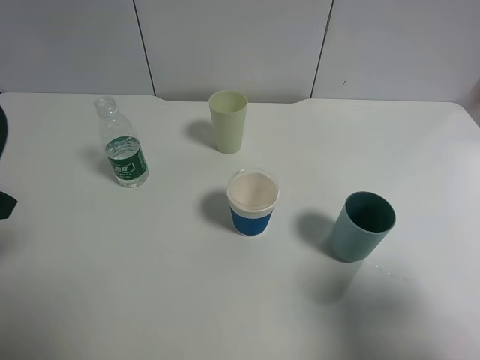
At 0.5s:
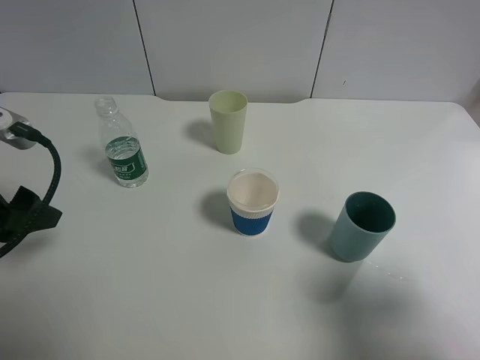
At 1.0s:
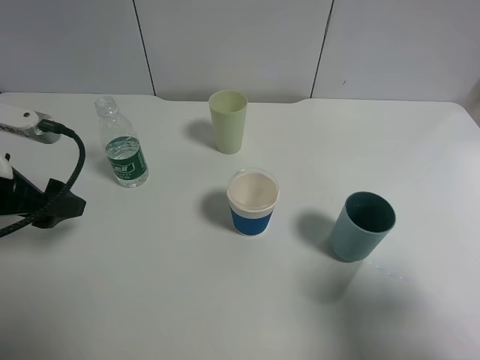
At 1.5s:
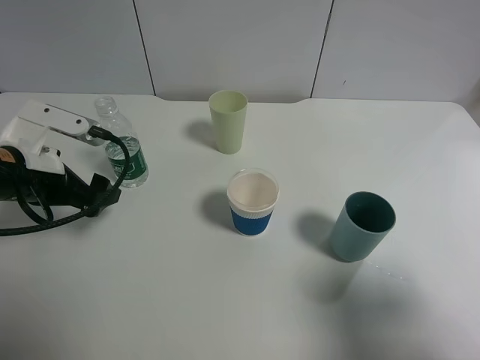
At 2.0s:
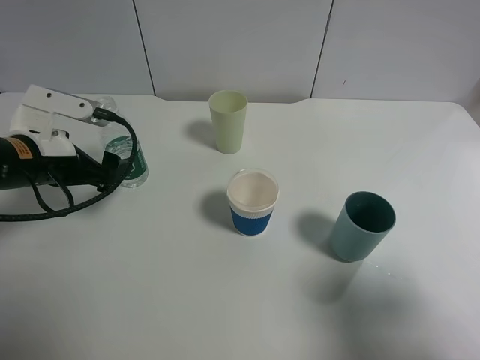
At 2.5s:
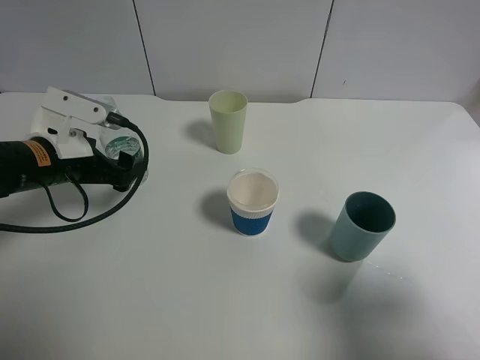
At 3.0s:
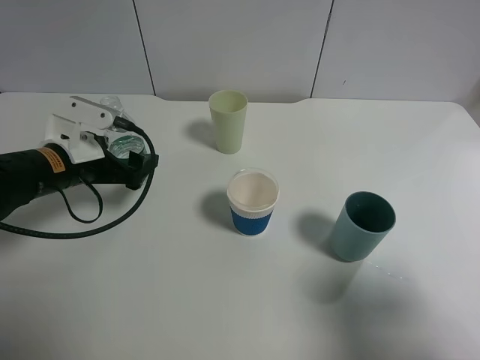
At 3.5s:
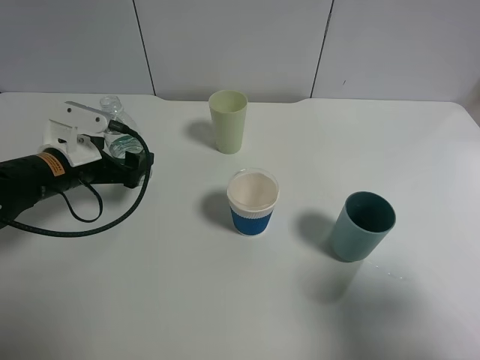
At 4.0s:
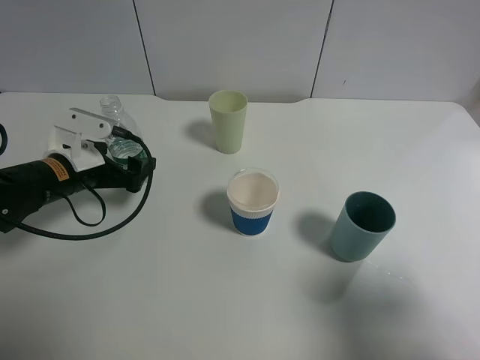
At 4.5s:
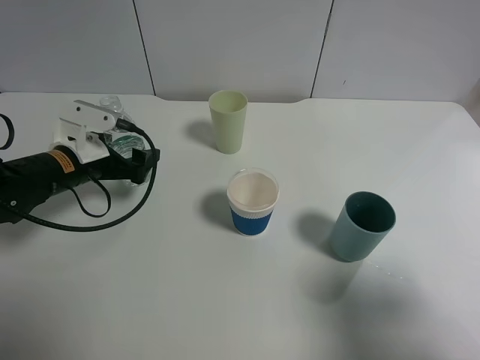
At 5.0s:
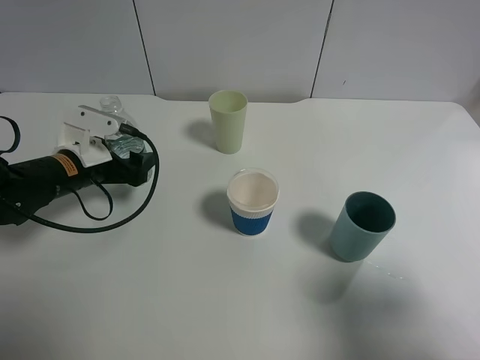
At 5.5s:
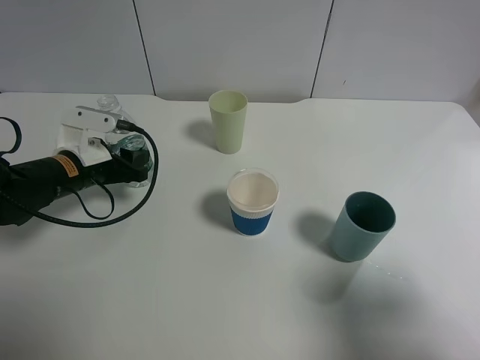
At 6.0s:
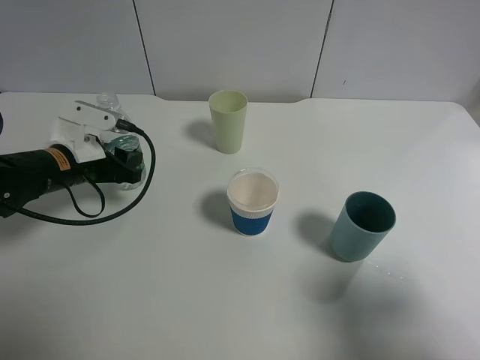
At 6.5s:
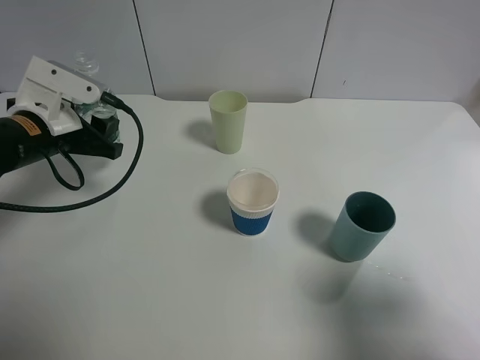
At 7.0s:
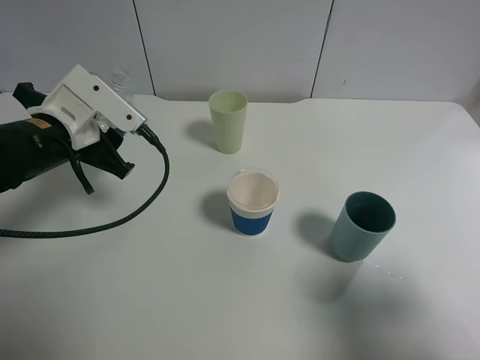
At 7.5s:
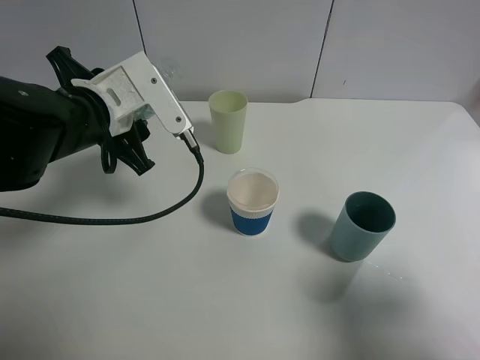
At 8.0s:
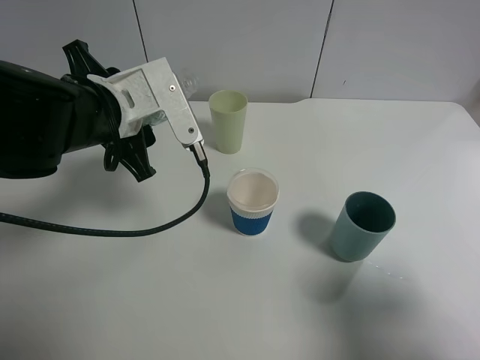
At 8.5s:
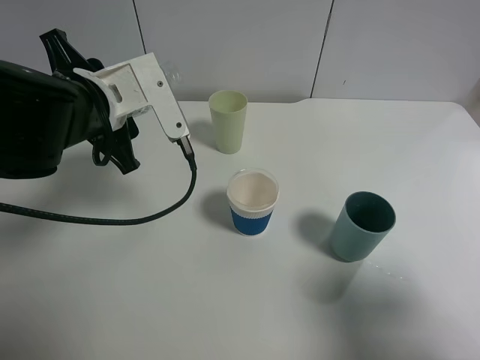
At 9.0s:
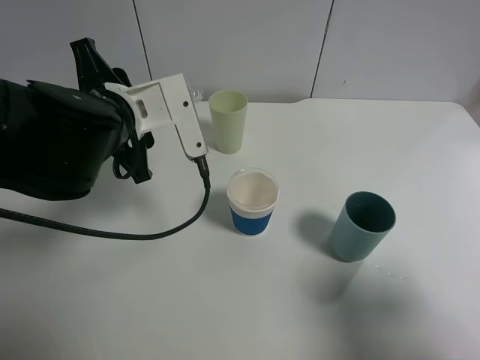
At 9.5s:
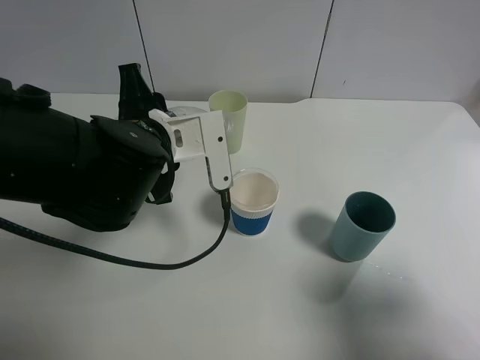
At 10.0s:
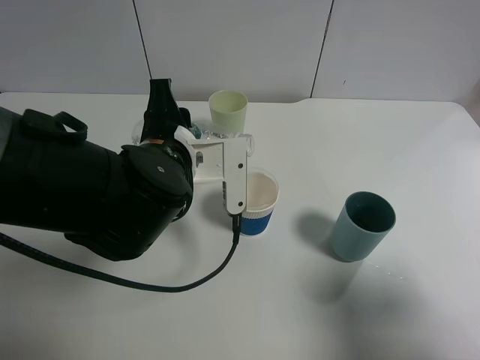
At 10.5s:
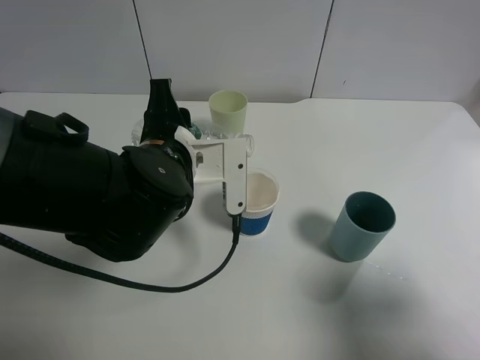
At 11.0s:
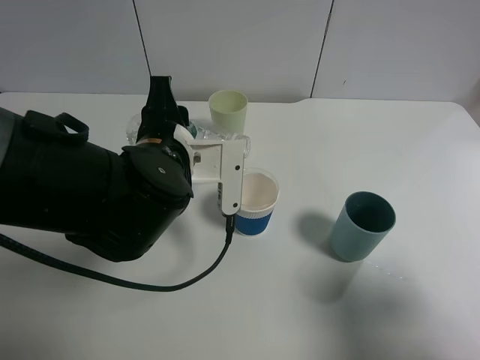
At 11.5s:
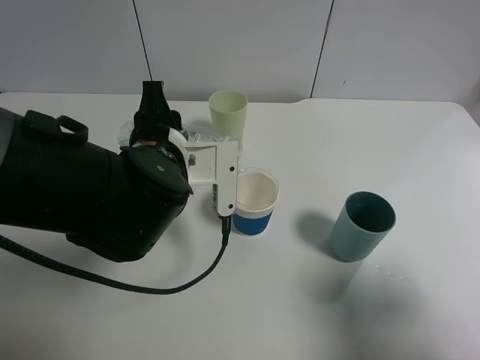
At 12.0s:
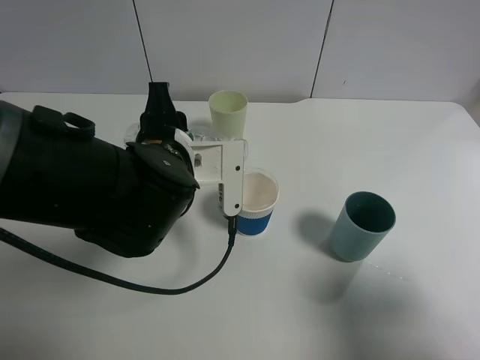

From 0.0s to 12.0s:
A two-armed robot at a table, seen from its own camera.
Task of the whole recording: use a gripper to hold the bottle of the drink and pour it into a random cup.
Step, from 0.0s to 5.0s: Grasp the mineral water bottle with the left gripper.
From 0.0s to 2.0s: The left gripper goes about 15 cm downward and forward.
From 2.0s to 4.0s: The left gripper goes some 5 cm downward.
From 4.0s to 6.0s: The left gripper closes.
From 6.0s to 8.0s: The left gripper goes about 15 cm upward and to the right.
From 8.0s to 10.0s: The left gripper travels to the right by about 5 cm.
From 10.0s to 12.0s: The grippers stay close to where they were, moving slightly.

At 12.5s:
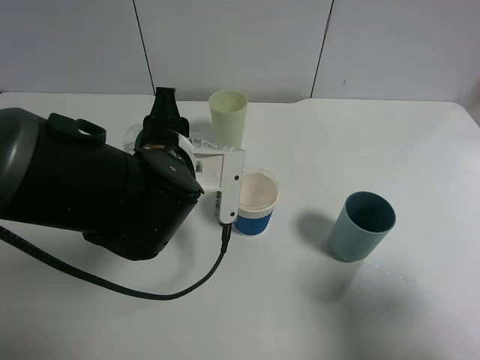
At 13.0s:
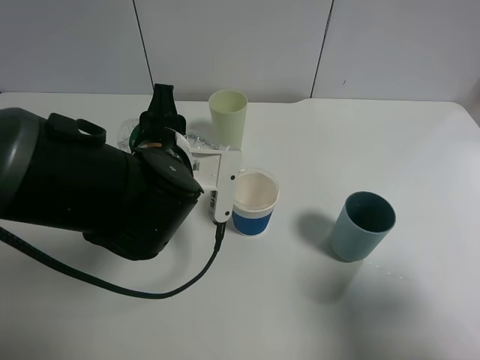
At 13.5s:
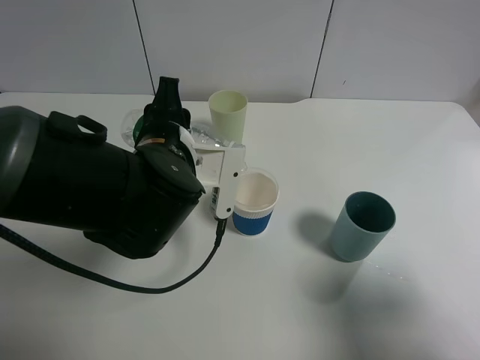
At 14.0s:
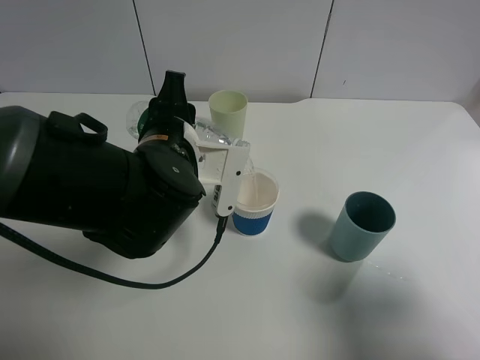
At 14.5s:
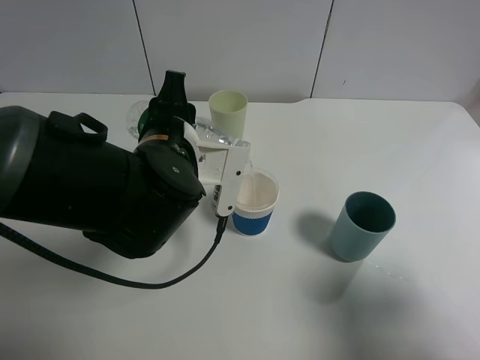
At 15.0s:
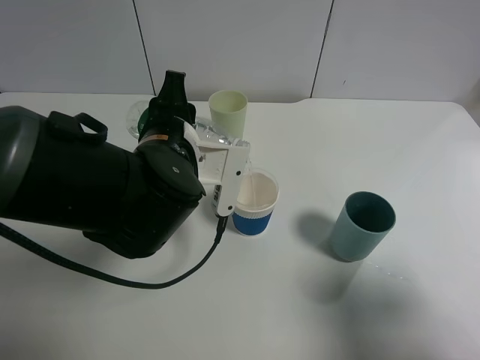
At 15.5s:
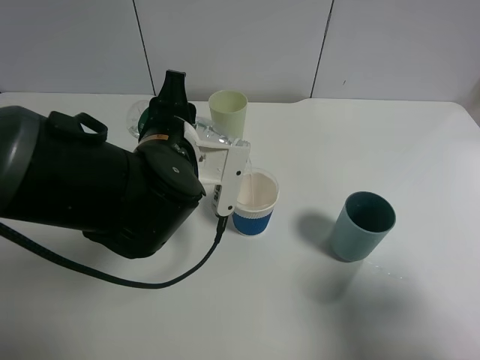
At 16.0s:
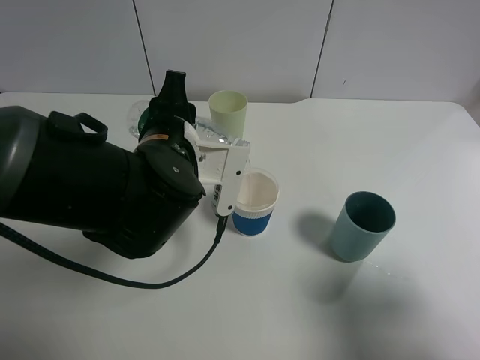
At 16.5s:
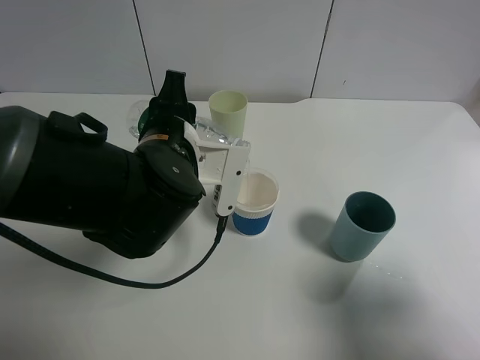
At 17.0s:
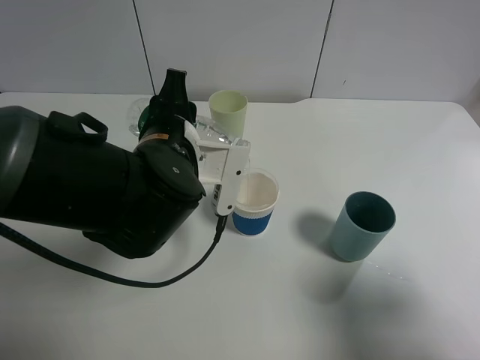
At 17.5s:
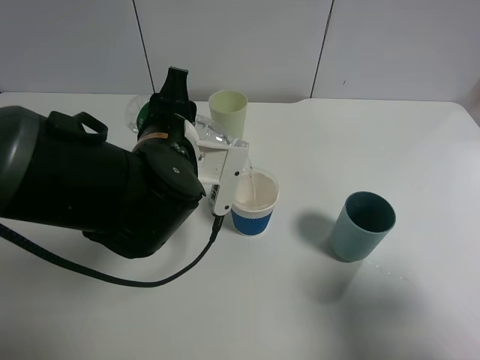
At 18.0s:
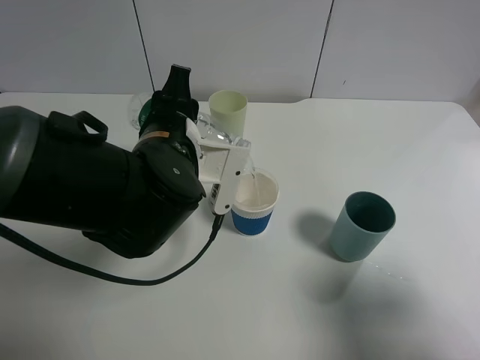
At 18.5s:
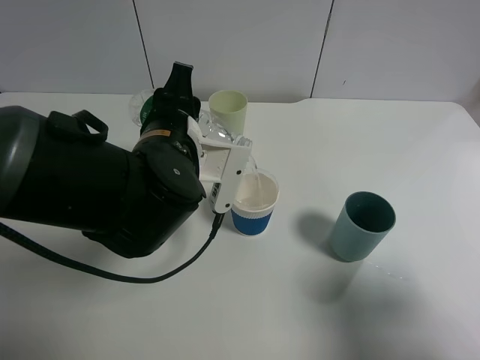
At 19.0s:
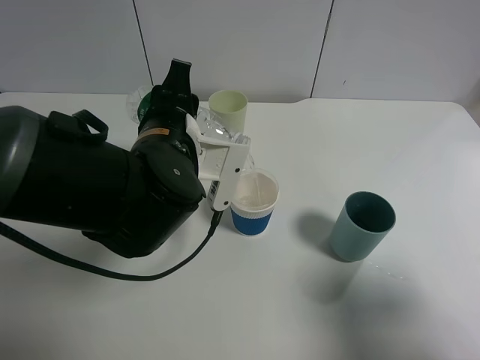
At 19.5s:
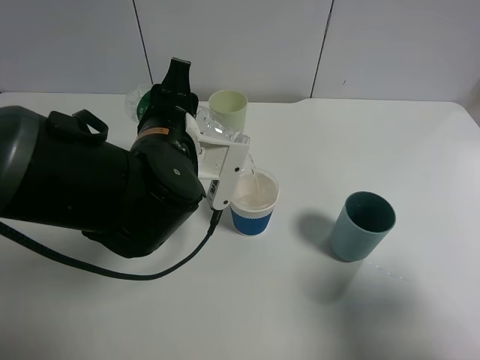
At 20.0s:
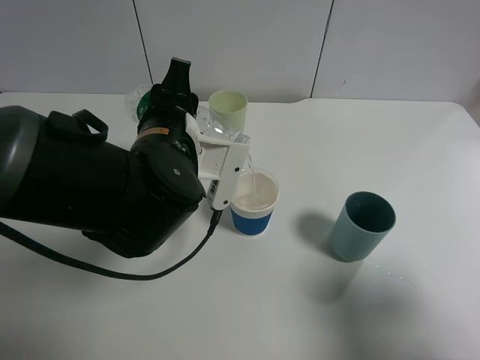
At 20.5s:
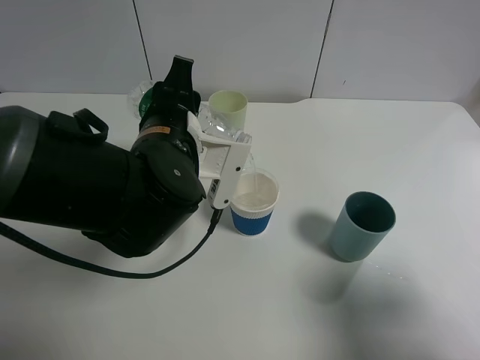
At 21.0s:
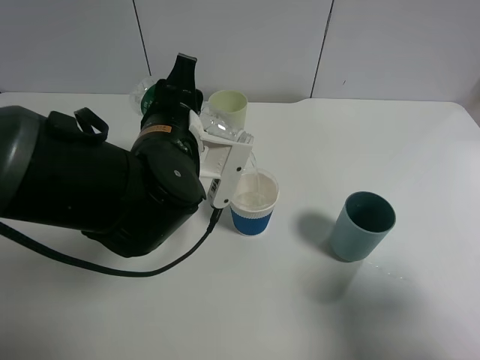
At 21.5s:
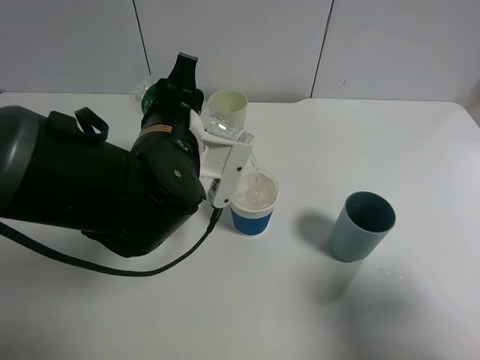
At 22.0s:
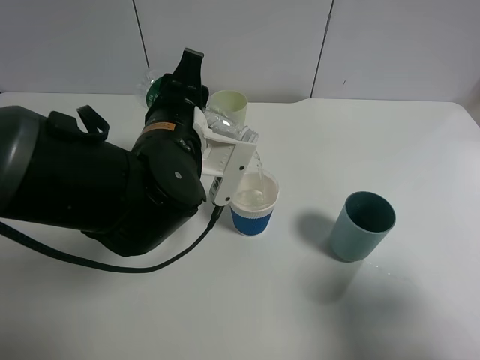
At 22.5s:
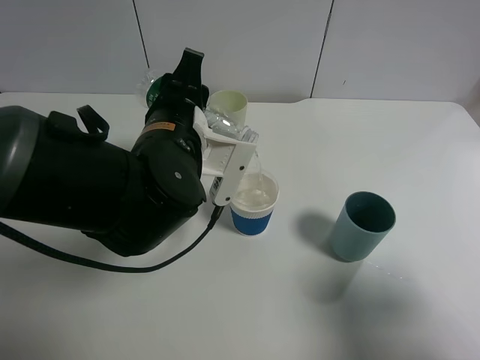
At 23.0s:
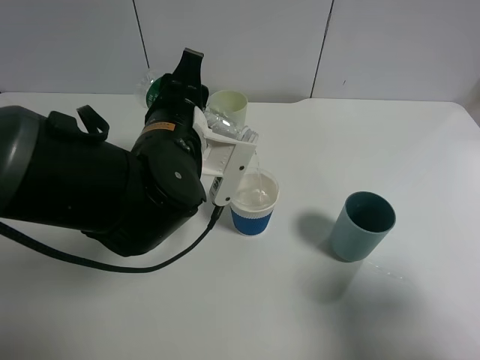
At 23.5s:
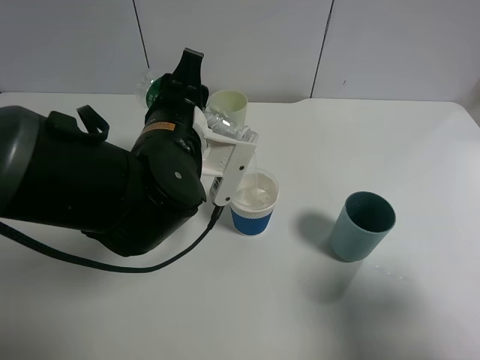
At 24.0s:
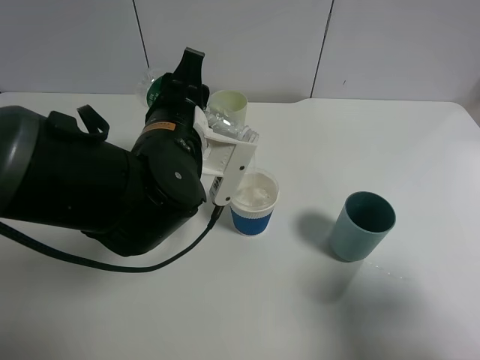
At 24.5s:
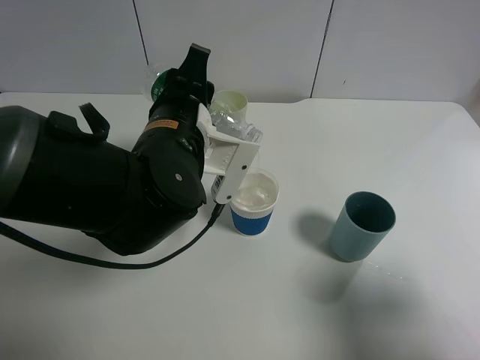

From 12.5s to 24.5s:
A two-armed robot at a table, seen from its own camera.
Task of the whole recording: use a gripper to hold the bottle of the drink and pour it into a random cup.
From 12.5s to 14.5s: The grippers move only a little.
From 14.5s to 16.5s: Both grippers stay put.
From 16.5s to 18.5s: There are only small adjustments of the grippers.
From 18.5s to 20.5s: Neither gripper changes place.
From 20.5s to 22.5s: The grippers make only small movements.
From 22.5s to 24.5s: The two grippers keep their place.

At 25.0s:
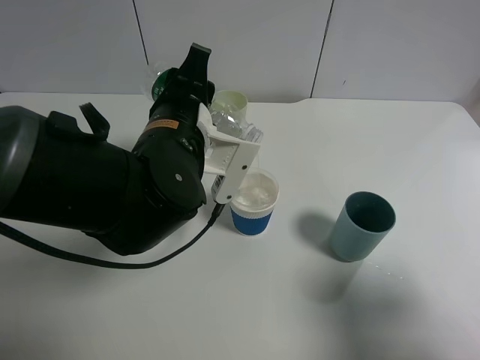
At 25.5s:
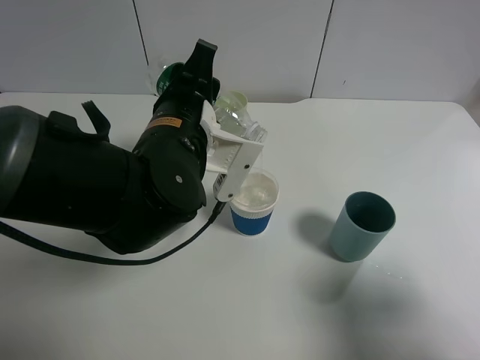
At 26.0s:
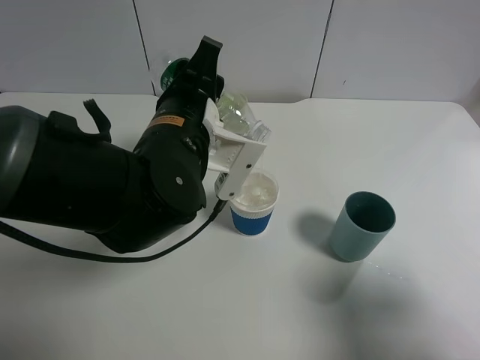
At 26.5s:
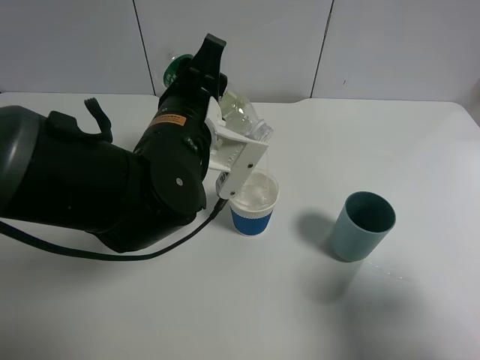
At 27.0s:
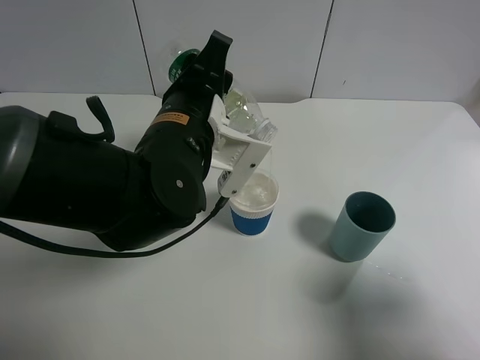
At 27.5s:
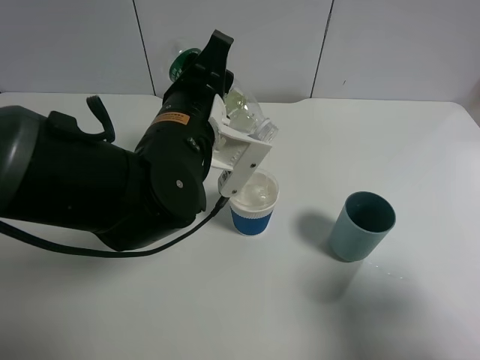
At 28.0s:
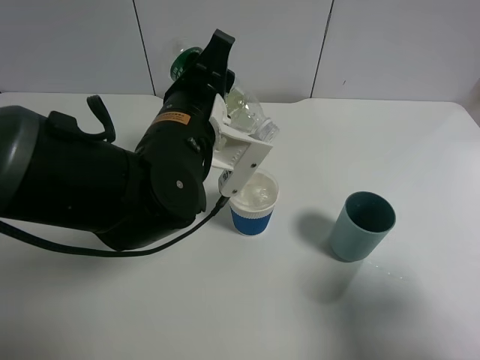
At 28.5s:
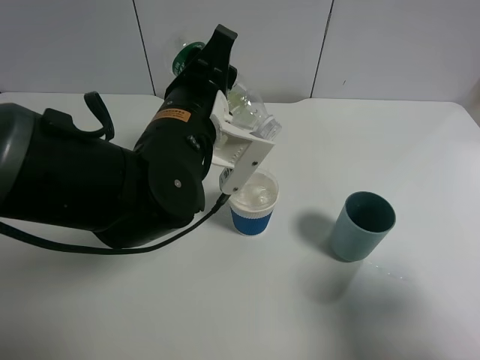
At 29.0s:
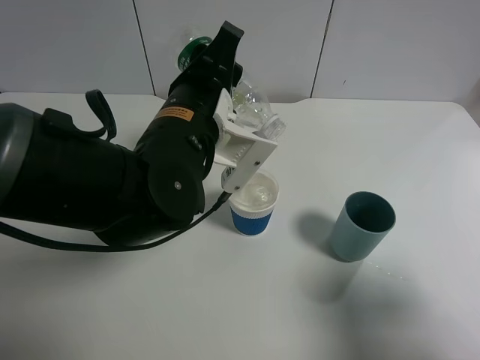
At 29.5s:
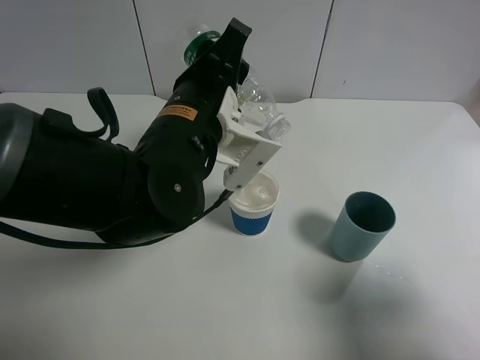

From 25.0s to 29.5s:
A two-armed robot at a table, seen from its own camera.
Task of the whole recording: use a gripper to hold the bottle of the drink and pour it into a random cup.
From 25.0s to 29.5s: There are only small adjustments of the grippers.
